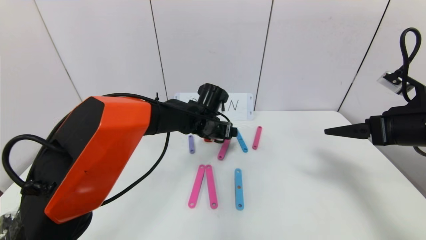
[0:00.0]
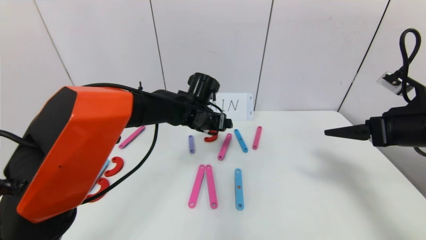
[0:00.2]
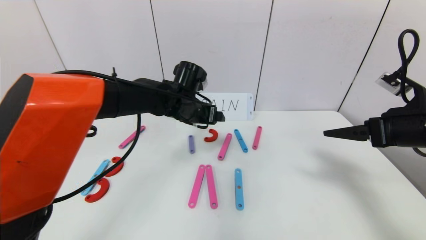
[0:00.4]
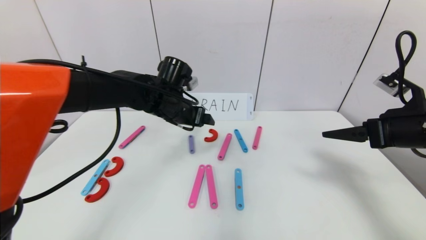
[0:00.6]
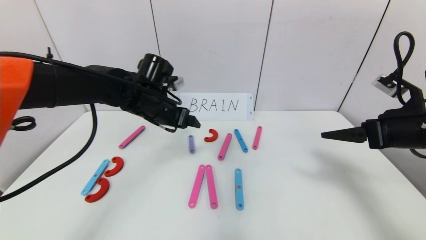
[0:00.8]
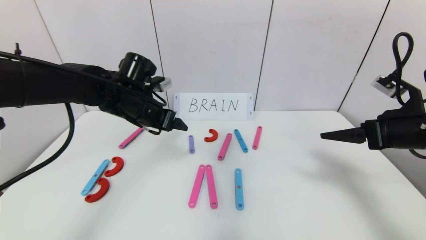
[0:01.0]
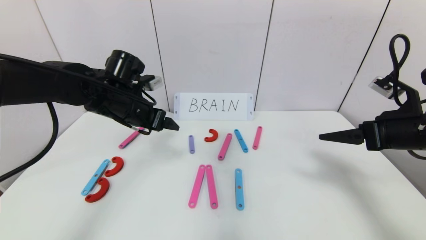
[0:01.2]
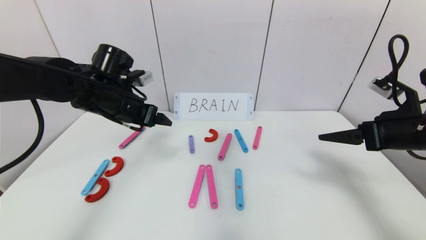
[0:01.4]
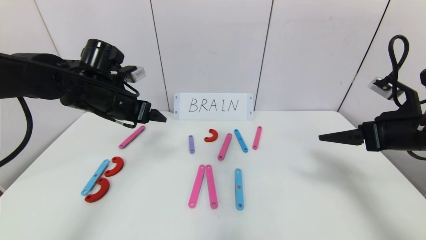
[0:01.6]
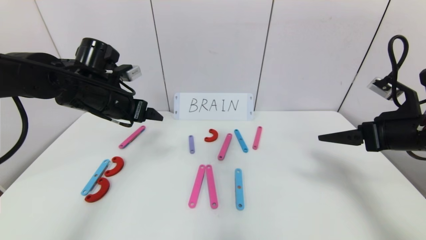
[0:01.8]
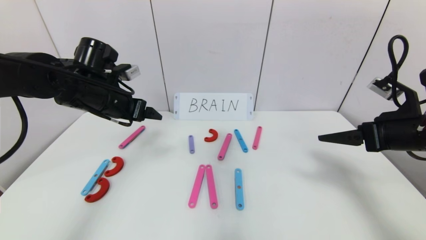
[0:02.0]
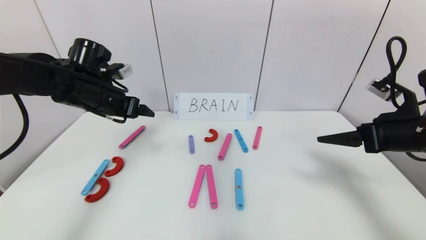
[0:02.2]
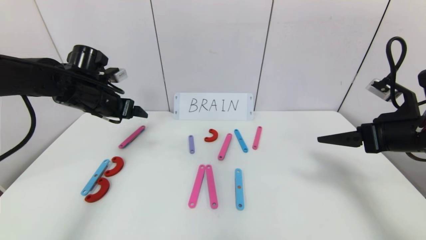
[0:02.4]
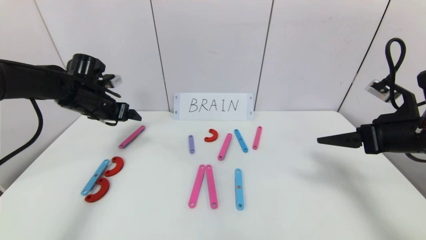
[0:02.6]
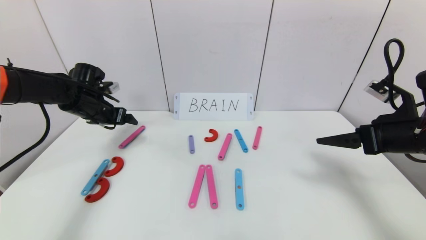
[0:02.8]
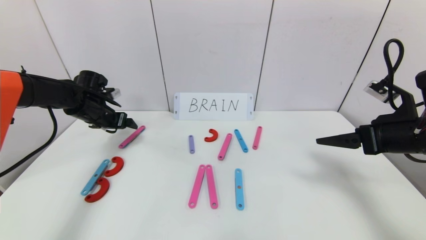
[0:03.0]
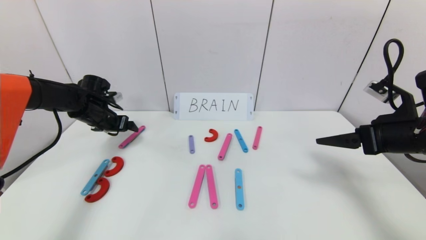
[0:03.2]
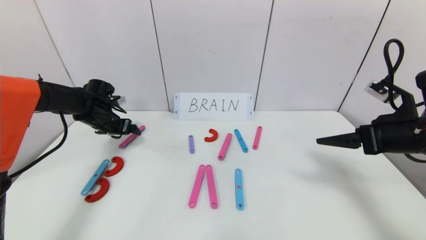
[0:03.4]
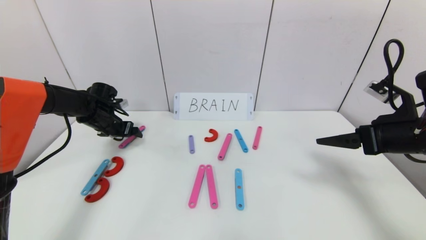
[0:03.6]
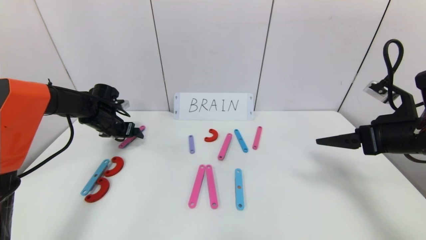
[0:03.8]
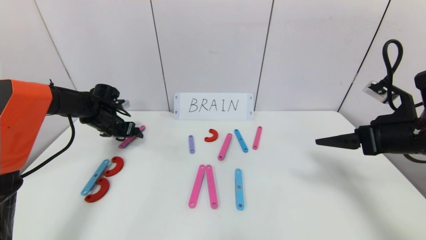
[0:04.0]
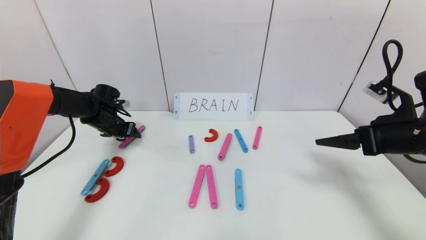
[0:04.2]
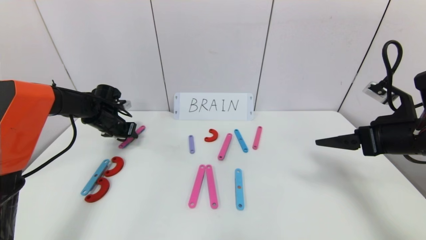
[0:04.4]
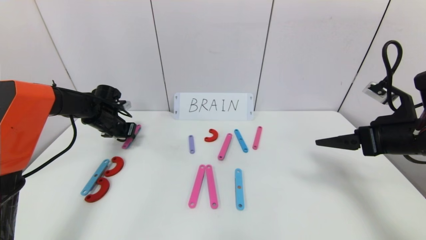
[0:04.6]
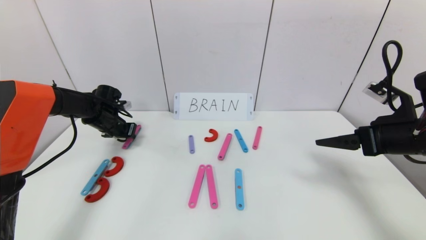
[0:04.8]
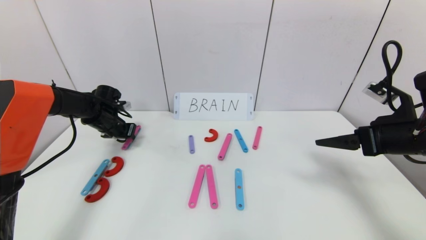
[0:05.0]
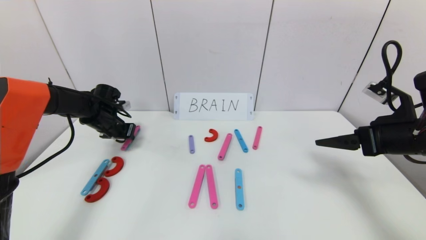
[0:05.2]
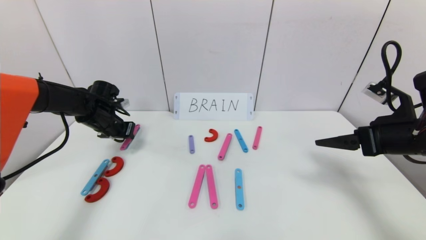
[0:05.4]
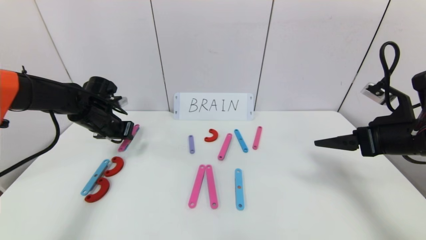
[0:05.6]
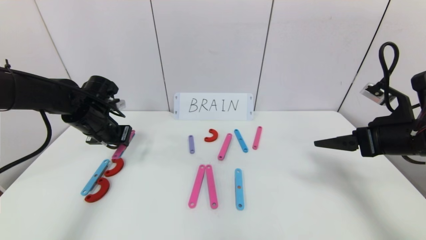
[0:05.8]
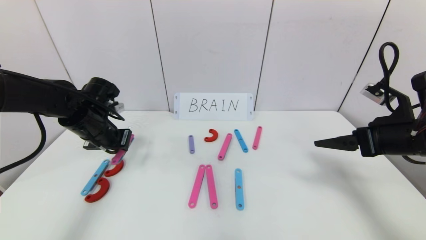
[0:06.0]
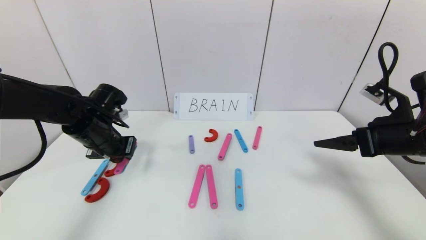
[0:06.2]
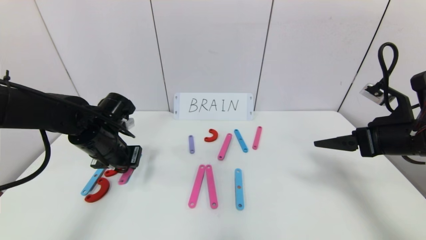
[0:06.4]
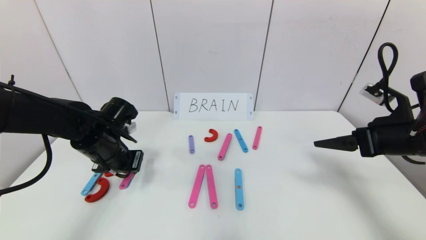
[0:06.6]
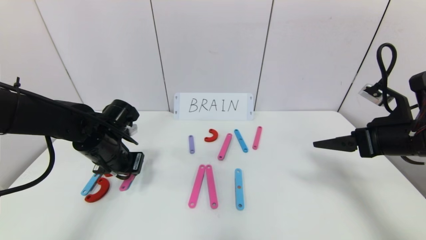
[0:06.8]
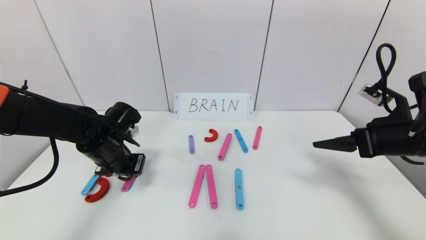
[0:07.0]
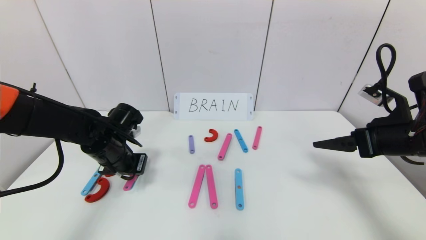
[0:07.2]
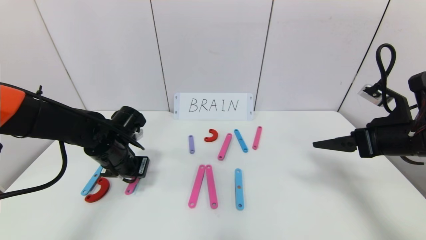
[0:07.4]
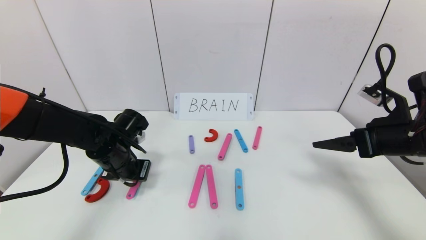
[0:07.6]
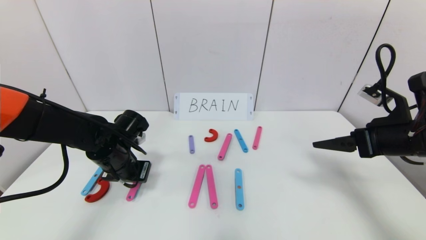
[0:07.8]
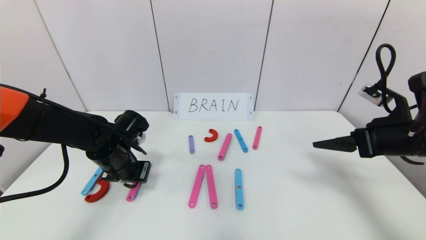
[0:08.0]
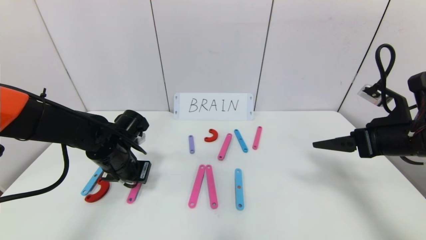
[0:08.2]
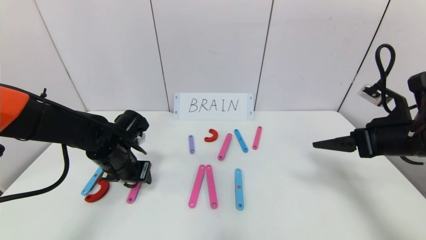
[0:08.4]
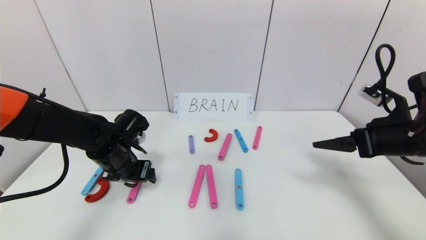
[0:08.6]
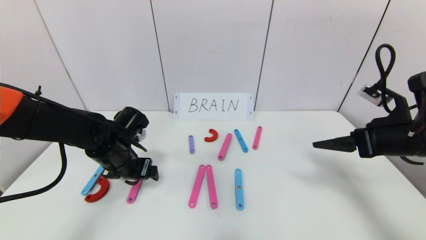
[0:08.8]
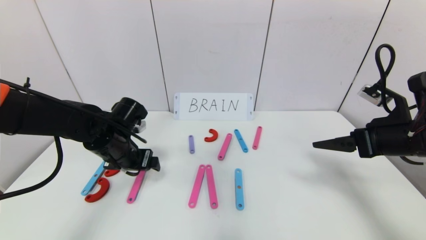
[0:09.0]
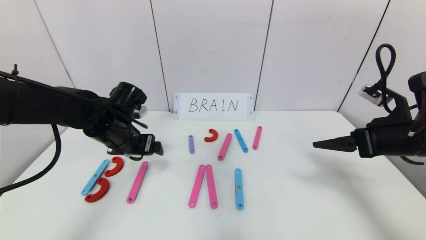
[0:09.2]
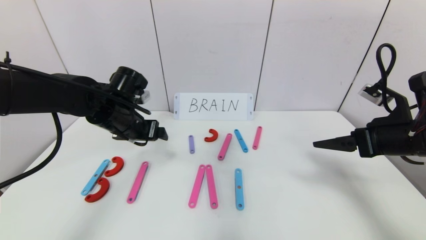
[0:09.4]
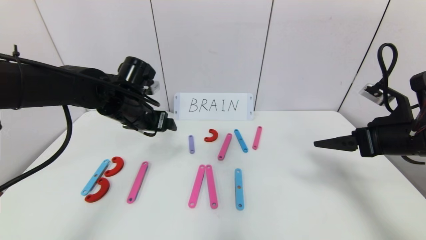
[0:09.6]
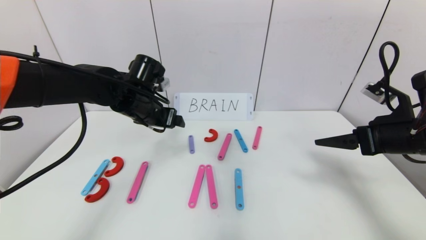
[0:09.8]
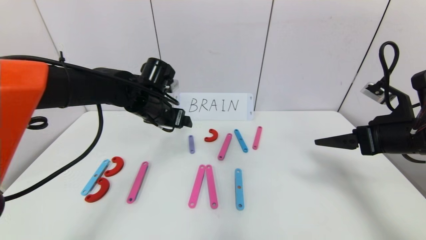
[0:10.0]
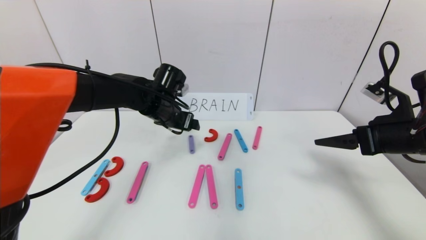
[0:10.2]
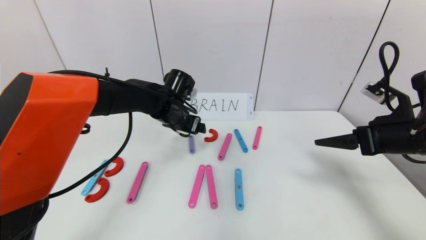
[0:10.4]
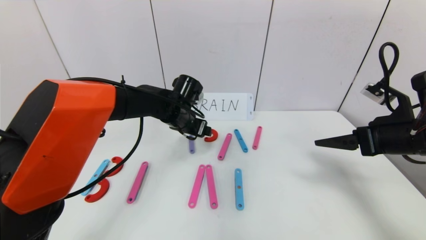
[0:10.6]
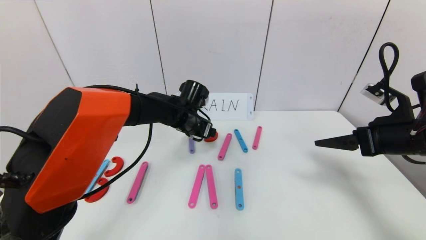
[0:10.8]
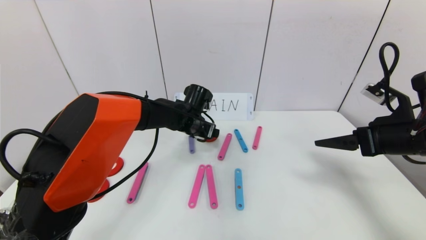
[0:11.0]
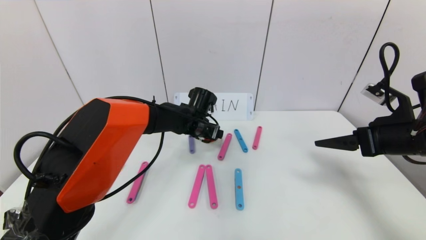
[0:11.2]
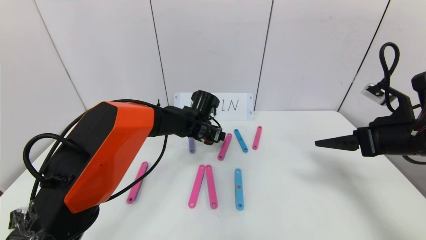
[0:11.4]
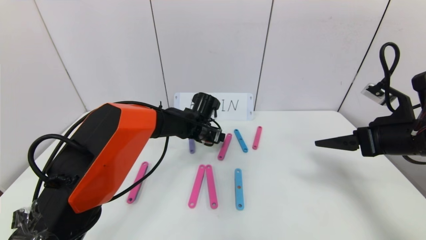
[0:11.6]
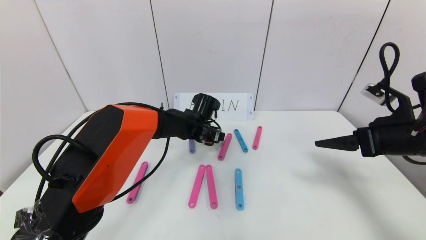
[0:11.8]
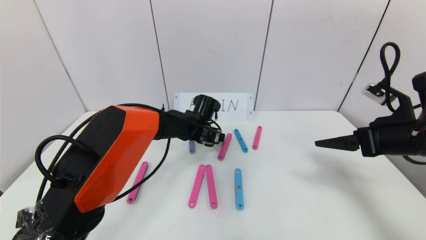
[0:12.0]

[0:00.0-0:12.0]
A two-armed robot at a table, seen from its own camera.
Task of the whole recording: rearrange the word baai as brain.
0:00.0 to 0:01.6: The left gripper moves to the left and upward, approximately 20 cm.
0:01.6 to 0:03.0: The left gripper heads to the left, forward and downward, covering roughly 15 cm.
0:03.0 to 0:04.4: The left gripper changes place by some 5 cm, and closes.
0:04.4 to 0:06.0: The left gripper moves backward, upward and to the right, some 15 cm.
0:06.0 to 0:07.6: The left gripper goes roughly 10 cm downward and to the right.
0:07.6 to 0:09.0: The left gripper opens up.
0:09.0 to 0:10.4: The left gripper heads to the right and forward, covering about 15 cm.
0:10.4 to 0:12.0: The left gripper heads downward and to the right, covering some 10 cm.

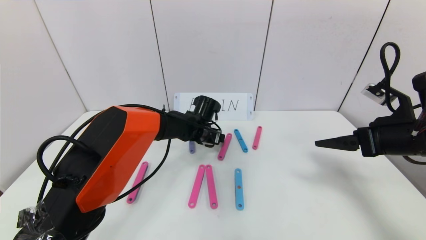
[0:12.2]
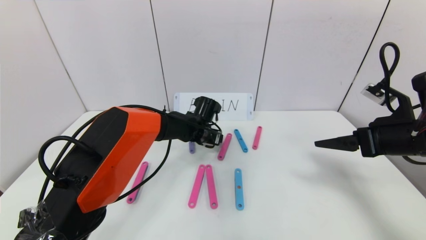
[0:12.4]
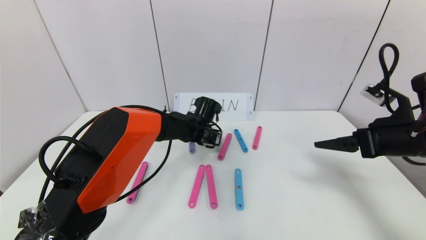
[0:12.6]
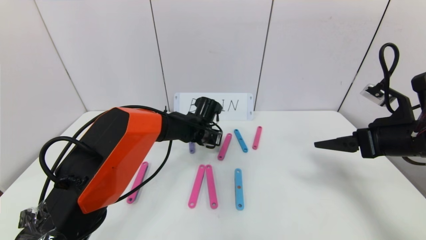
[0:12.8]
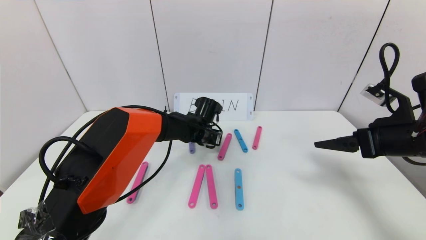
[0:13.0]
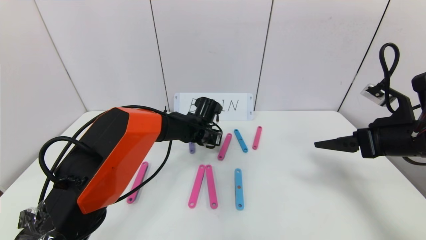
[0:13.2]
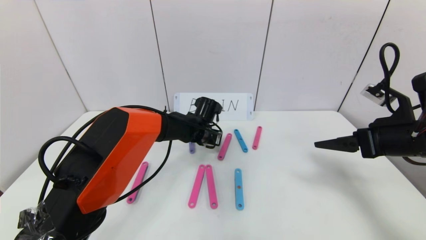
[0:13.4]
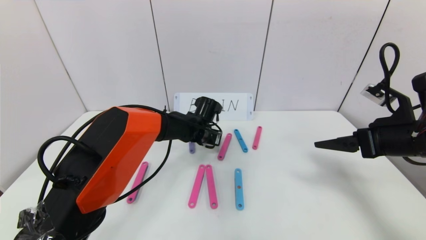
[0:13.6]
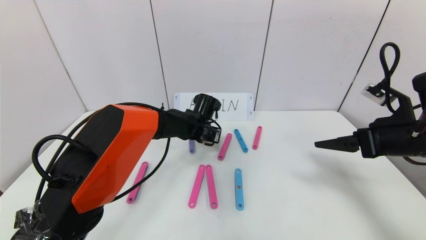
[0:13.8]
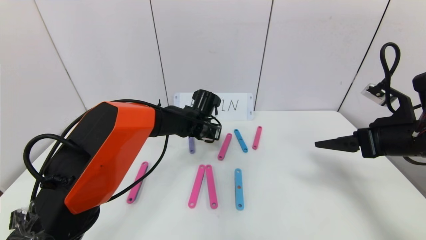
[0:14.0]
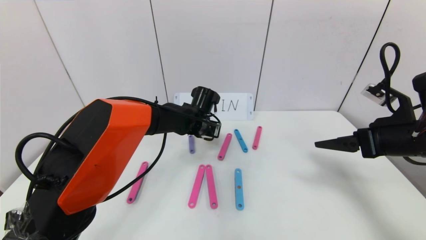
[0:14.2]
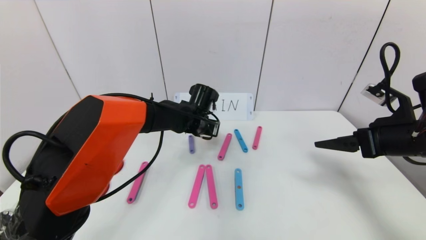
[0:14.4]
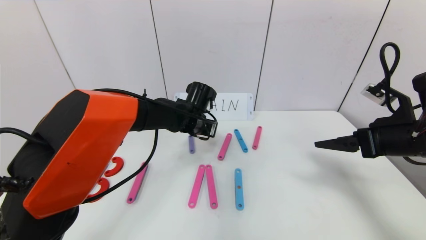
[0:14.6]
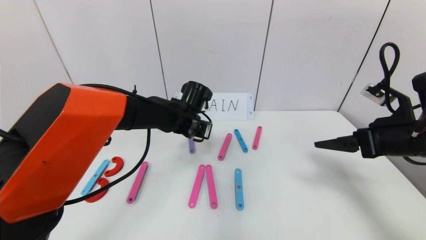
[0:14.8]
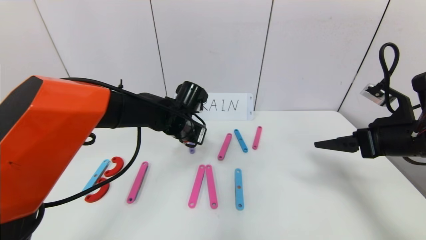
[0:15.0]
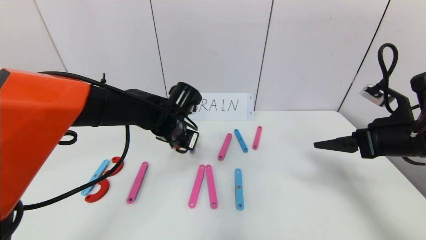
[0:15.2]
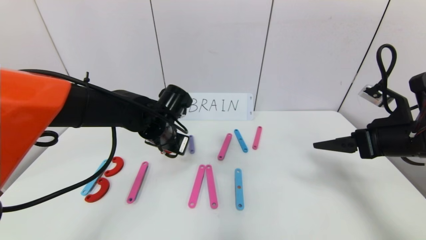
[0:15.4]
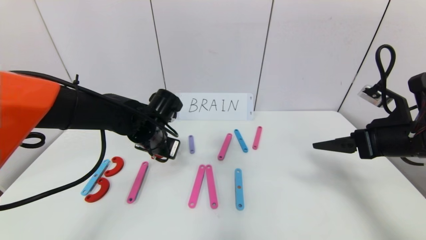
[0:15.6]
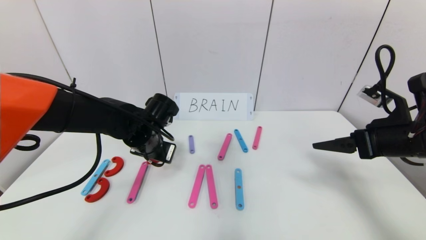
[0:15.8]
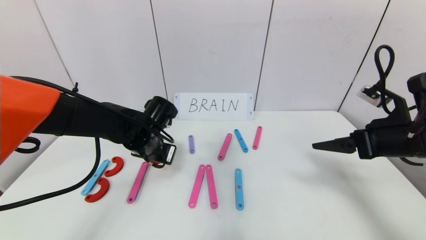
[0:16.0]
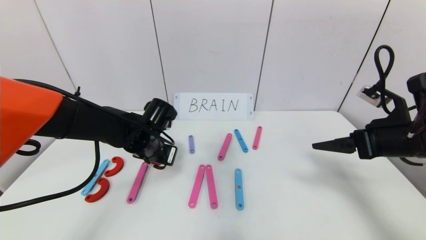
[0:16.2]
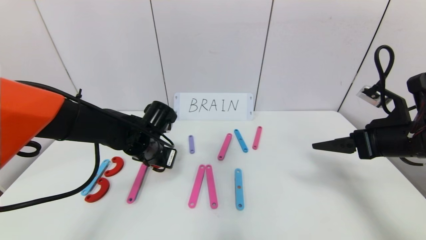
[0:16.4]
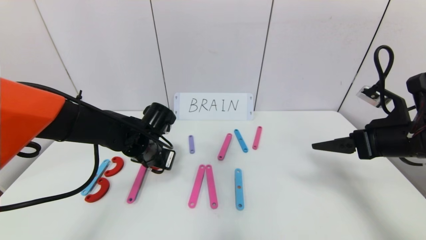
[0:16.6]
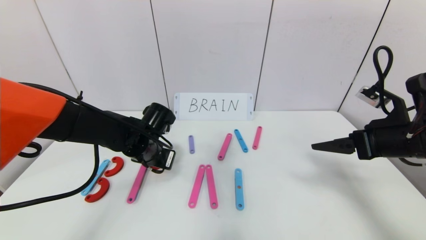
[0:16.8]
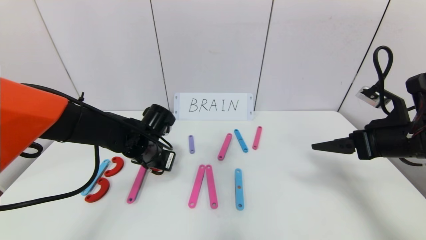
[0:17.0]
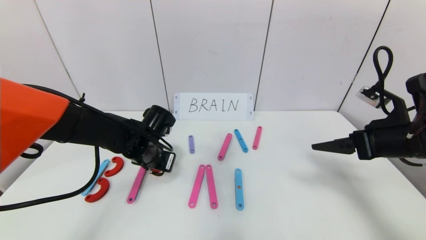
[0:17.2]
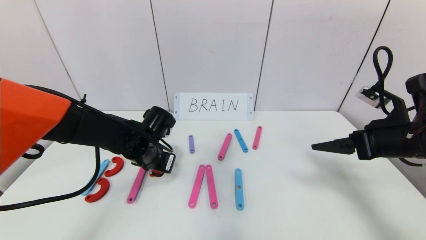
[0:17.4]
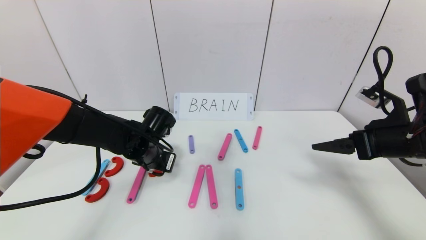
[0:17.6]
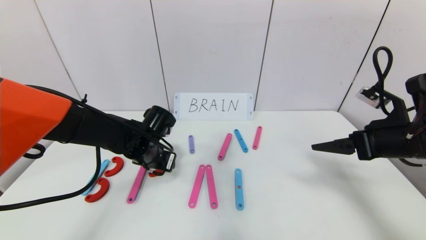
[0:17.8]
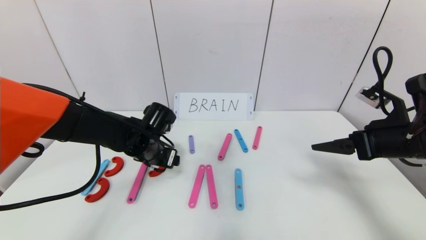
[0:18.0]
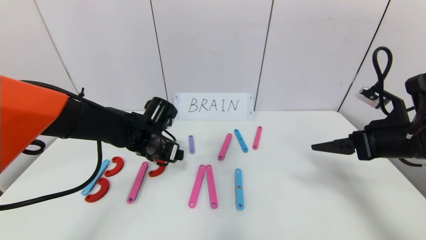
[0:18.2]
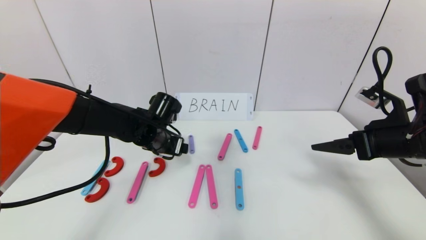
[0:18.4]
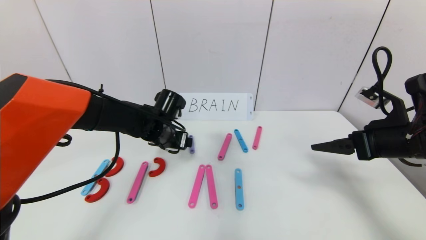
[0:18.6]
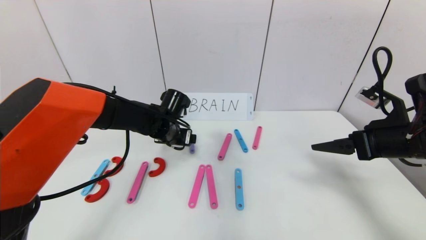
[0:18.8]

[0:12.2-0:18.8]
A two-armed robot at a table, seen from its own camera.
Task of the whole recording: rearrange the word baai as brain.
0:12.2 to 0:13.8: The left gripper closes up.
0:13.8 to 0:15.4: The left gripper shifts approximately 15 cm backward, to the left and upward.
0:15.4 to 0:17.2: The left gripper shifts by approximately 5 cm.
0:17.2 to 0:18.8: The left gripper is displaced forward by roughly 5 cm, and opens up.
